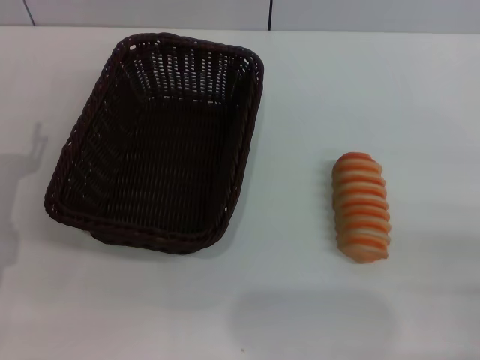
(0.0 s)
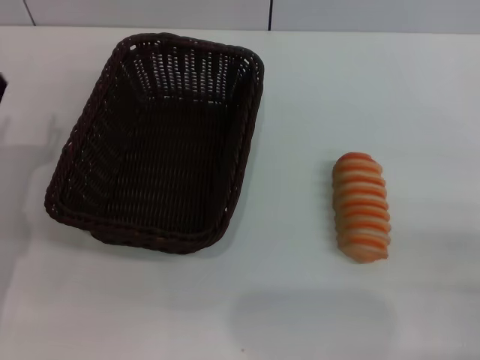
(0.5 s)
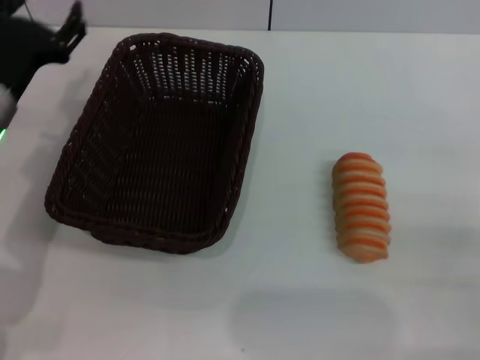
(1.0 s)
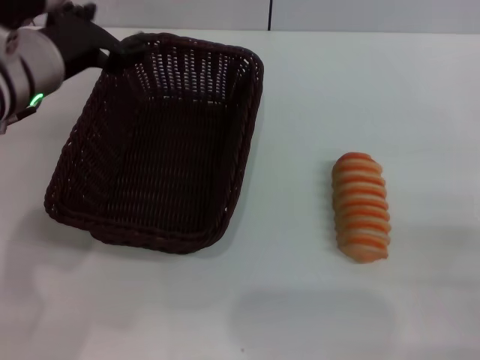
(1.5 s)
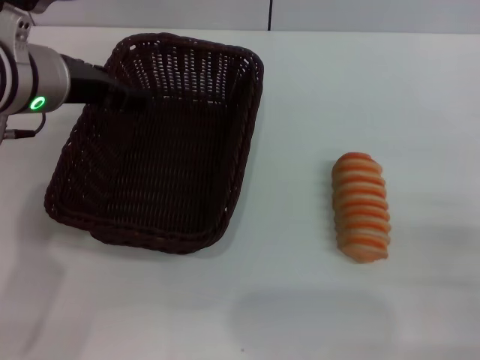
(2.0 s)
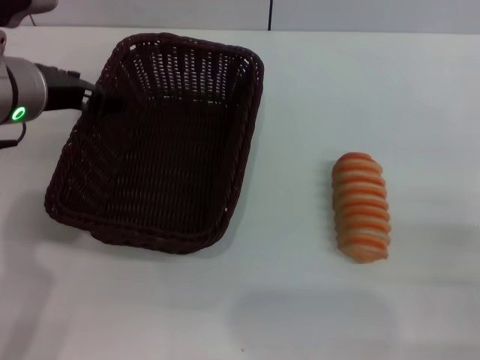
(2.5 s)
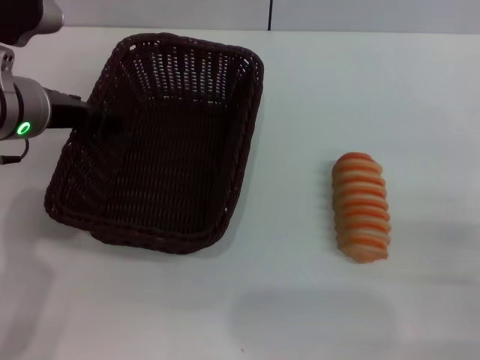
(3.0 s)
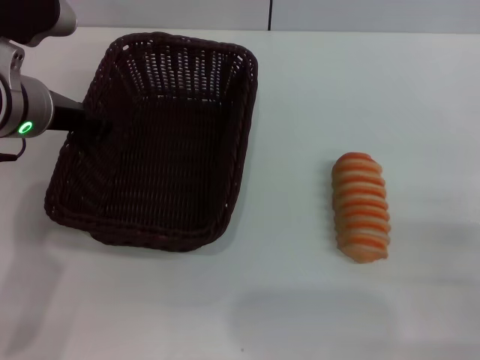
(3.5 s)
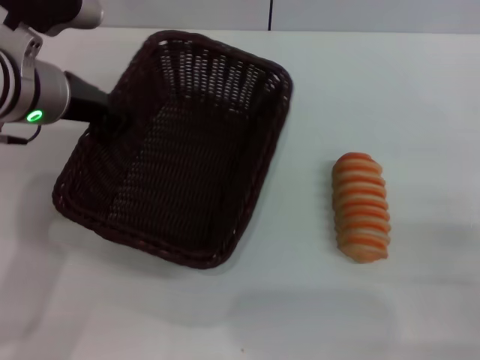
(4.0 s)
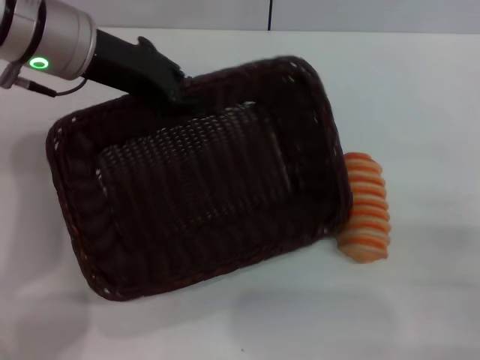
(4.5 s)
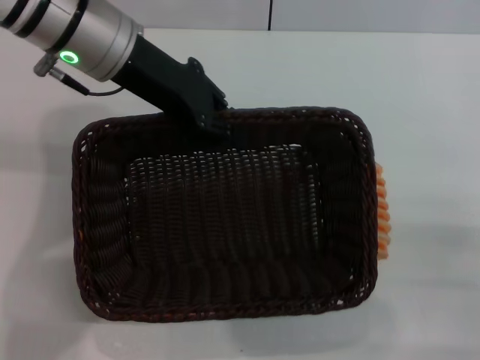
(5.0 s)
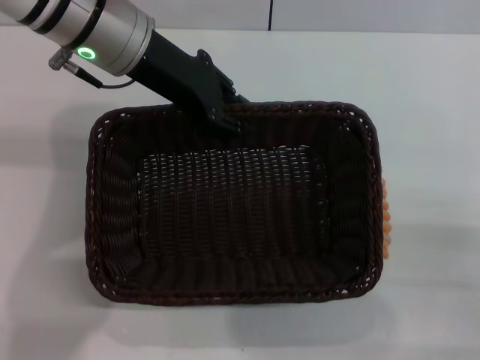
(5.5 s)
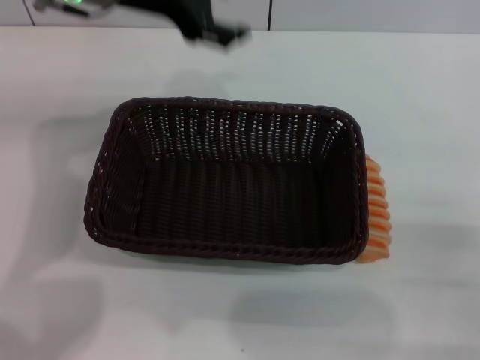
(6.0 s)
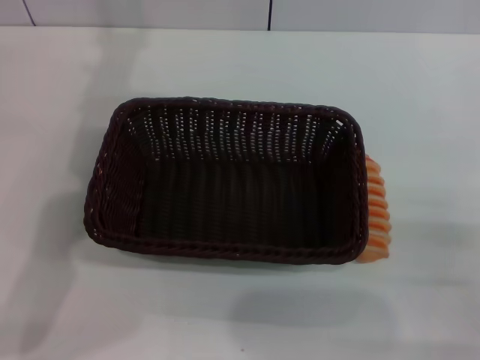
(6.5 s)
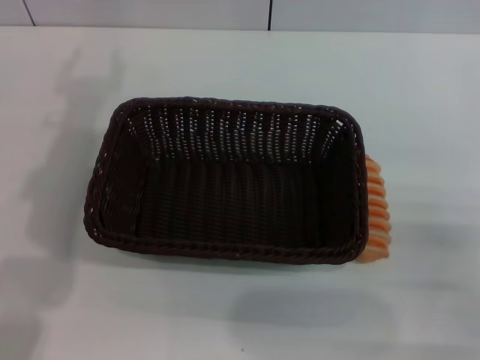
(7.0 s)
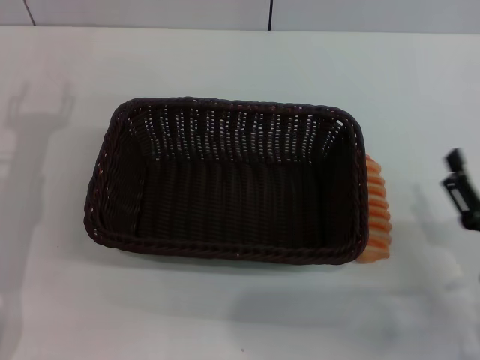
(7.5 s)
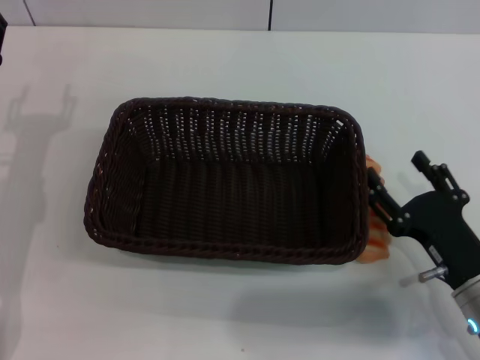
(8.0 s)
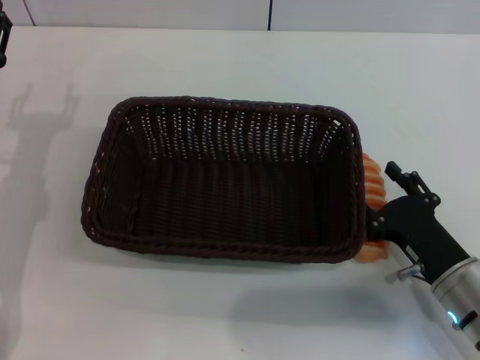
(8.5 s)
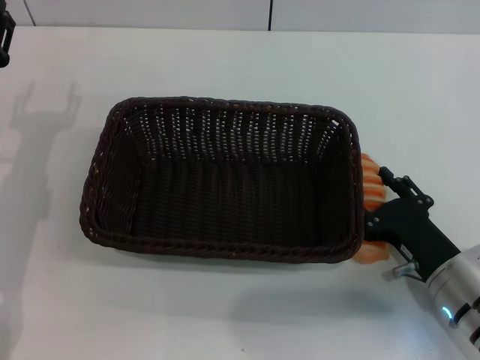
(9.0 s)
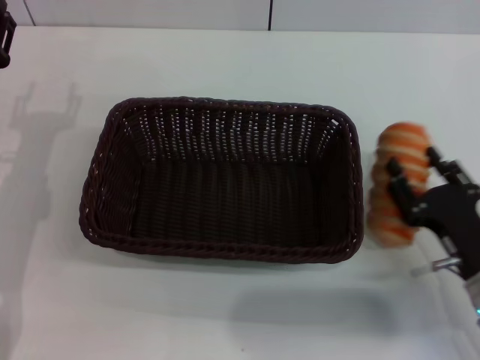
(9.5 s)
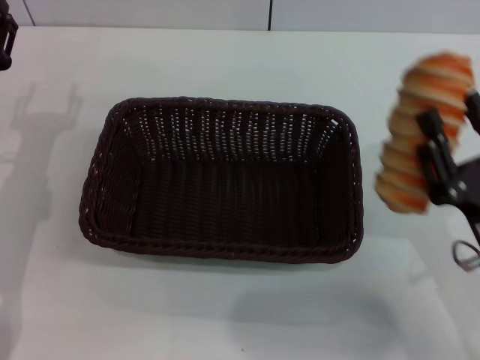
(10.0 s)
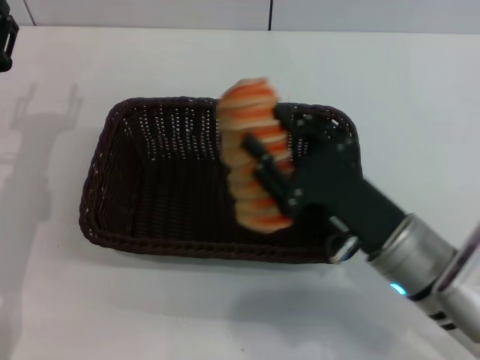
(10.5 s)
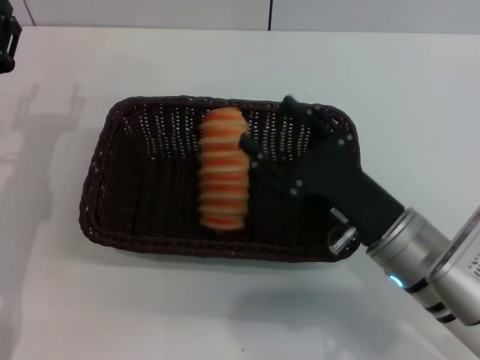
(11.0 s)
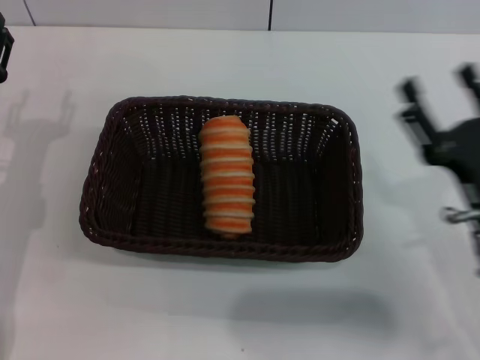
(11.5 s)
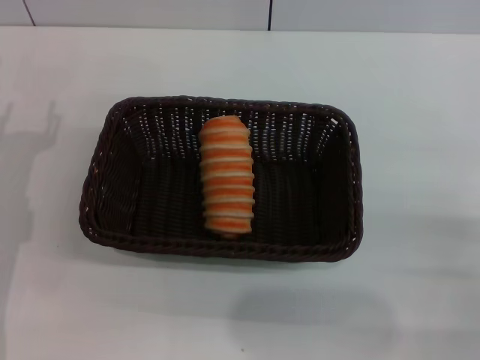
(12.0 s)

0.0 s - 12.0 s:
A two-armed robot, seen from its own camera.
Step, 0.0 s - 4.0 s: Pick up the dark basket with the left gripper.
Step, 4.5 s - 5.5 s: Place the dark basket in the center of view with the left gripper.
Step, 6.0 s - 9.5 s: Pick up the long bread with the right gripper.
Step, 10.0 s - 11.0 s: Place the long bread into the dark basket with the right gripper.
0.0 s - 2.0 s: The left gripper travels upward, to the right and forward by approximately 20 cm.
2.0 s - 4.0 s: The left gripper closes its fingers.
4.0 s - 6.0 s: The left gripper moves upward and forward, approximately 10 cm, and opens up.
6.0 s - 8.0 s: The right gripper moves to the left, about 10 cm. Meanwhile the left gripper travels downward, to the left and backward by some 25 cm.
8.0 s - 10.0 s: The right gripper ends up approximately 5 cm from where it was, and closes.
10.0 s - 12.0 s: The right gripper travels to the right by roughly 10 cm, and opens up.

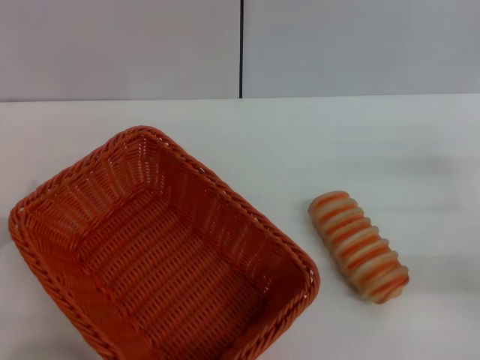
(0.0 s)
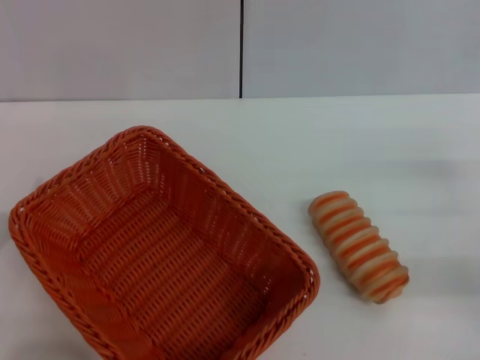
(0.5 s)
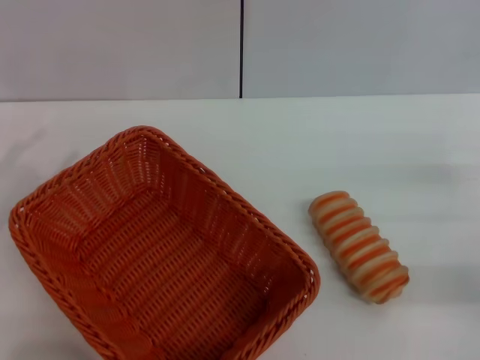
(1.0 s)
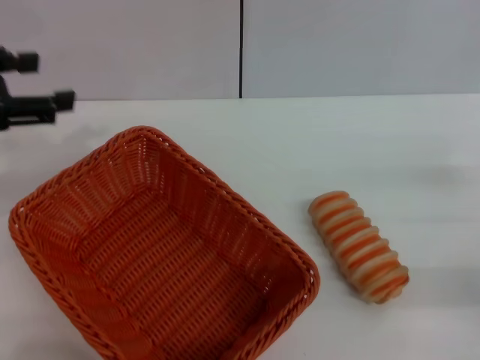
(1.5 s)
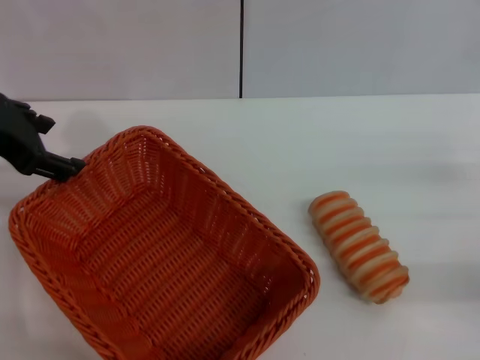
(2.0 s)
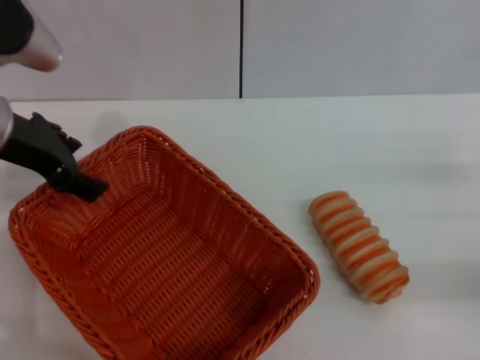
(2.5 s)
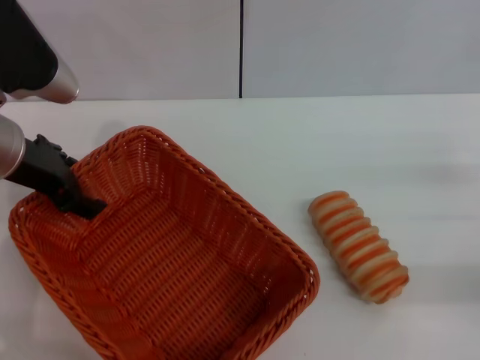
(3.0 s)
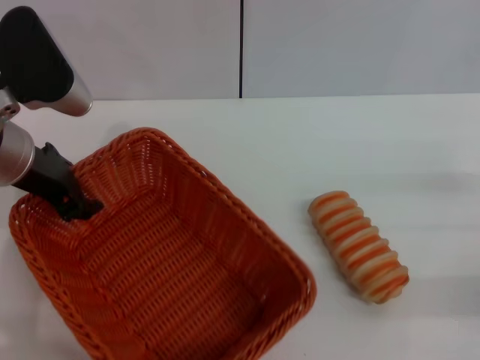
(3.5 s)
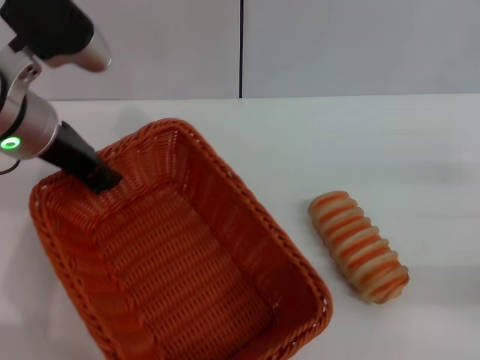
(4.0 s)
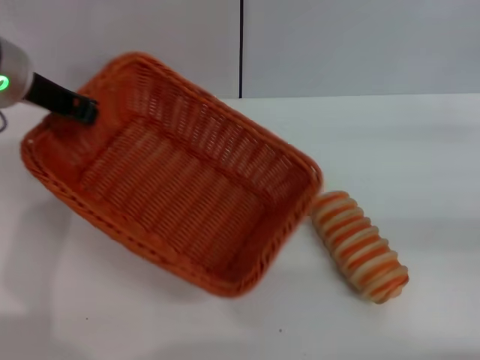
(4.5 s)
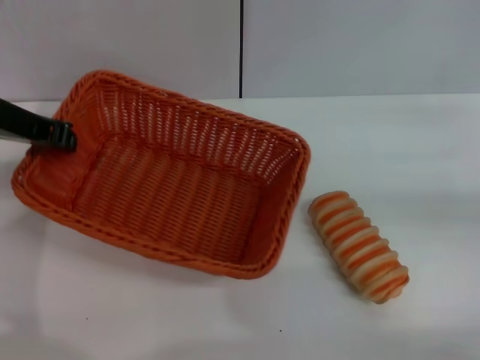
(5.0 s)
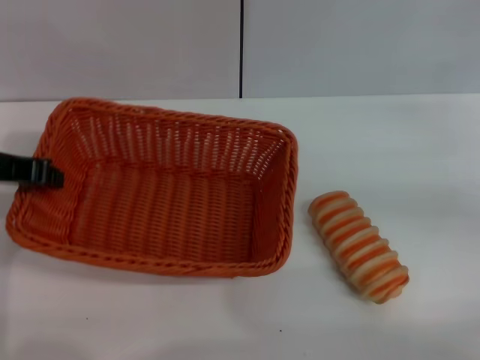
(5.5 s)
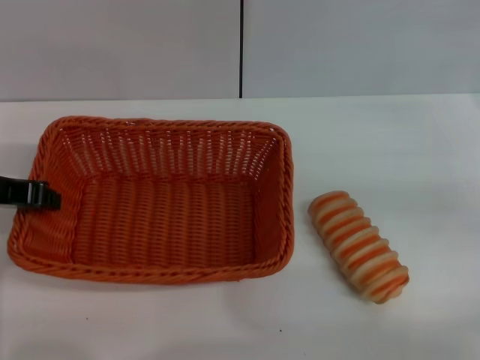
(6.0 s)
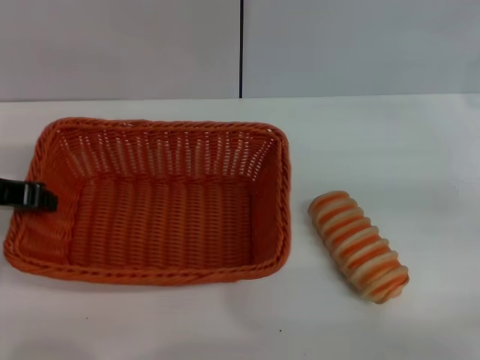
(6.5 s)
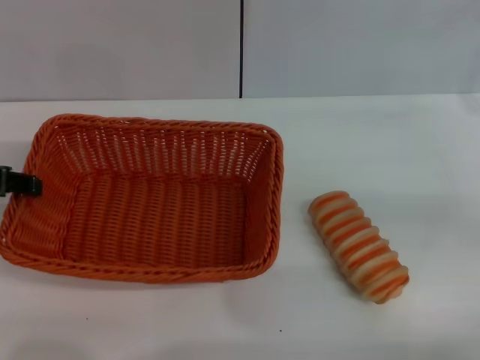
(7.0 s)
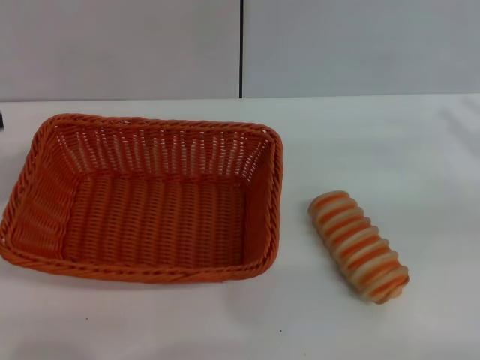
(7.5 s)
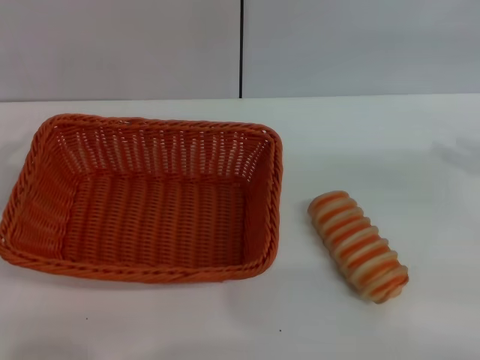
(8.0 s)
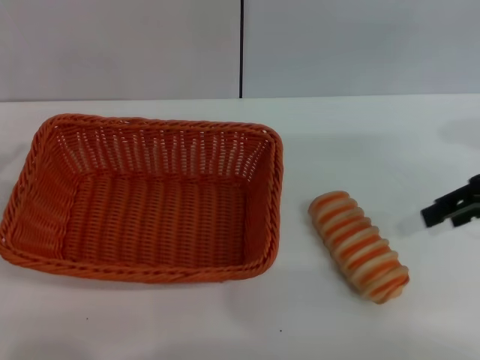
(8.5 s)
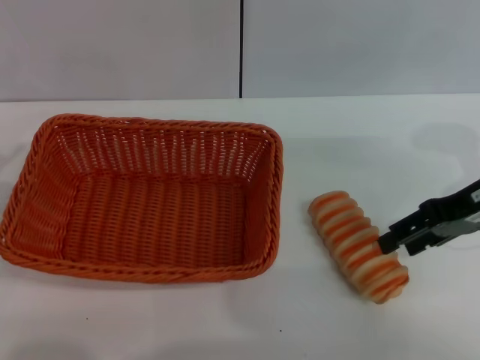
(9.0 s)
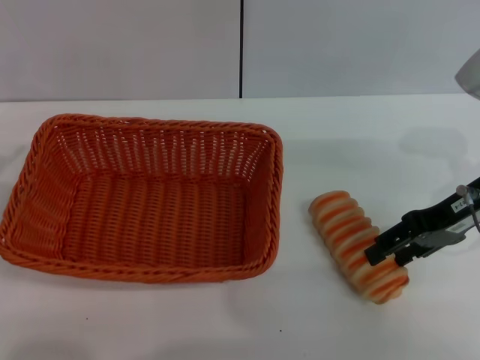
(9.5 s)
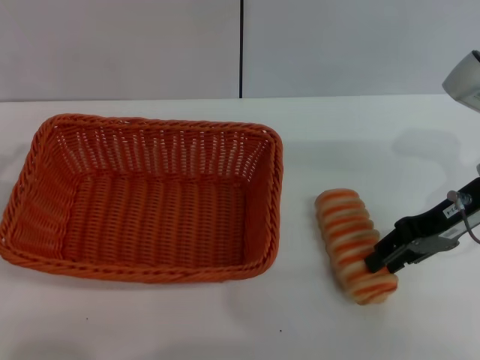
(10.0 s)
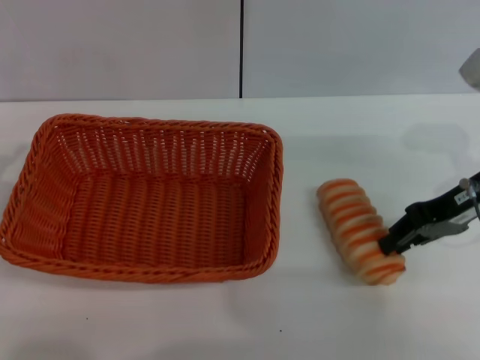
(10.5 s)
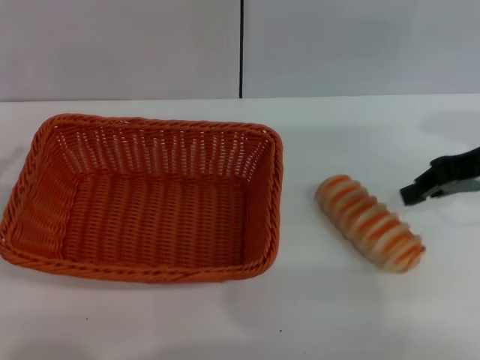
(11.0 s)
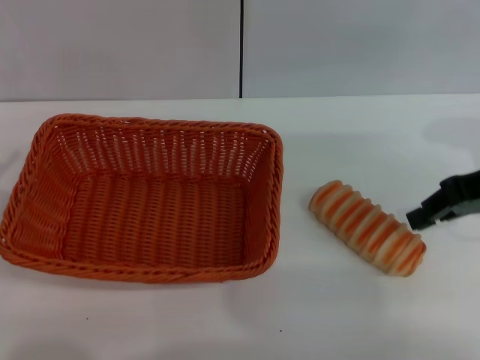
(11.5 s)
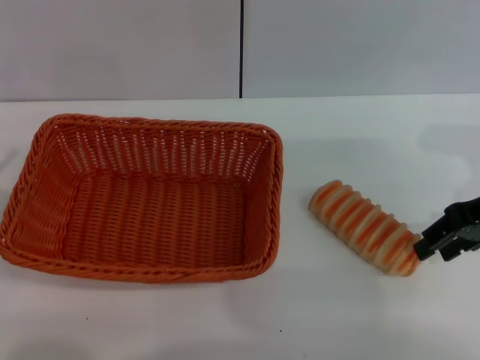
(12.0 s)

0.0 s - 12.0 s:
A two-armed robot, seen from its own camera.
Step, 0.0 s - 4.5 s: Pick up the light basket with the left gripper.
Step, 5.0 s - 7.0 s: Place the light basket in the center of view with the left gripper.
0.0 s - 2.0 s: The left gripper heads upward and forward, covering roughly 25 cm.
2.0 s - 4.0 s: The left gripper shifts about 5 cm to the right, and closes up.
4.0 s - 6.0 s: The left gripper travels to the left and backward by roughly 10 cm, while the right gripper shifts about 10 cm forward and upward.
6.0 s - 8.0 s: The right gripper shifts about 5 cm upward. Meanwhile the left gripper goes roughly 10 cm to the left and backward, and opens its fingers.
8.0 s - 10.0 s: The right gripper travels to the left and downward by some 15 cm.
10.0 s - 12.0 s: The right gripper shifts by roughly 5 cm, and closes and opens again.

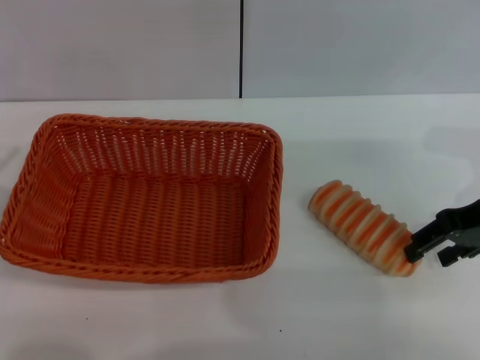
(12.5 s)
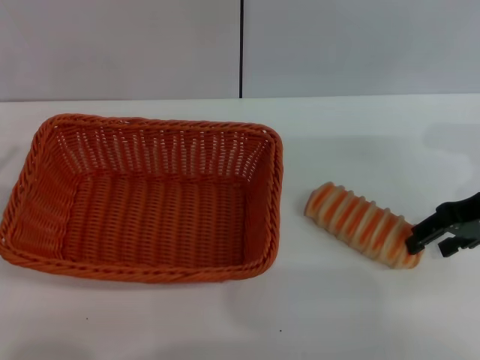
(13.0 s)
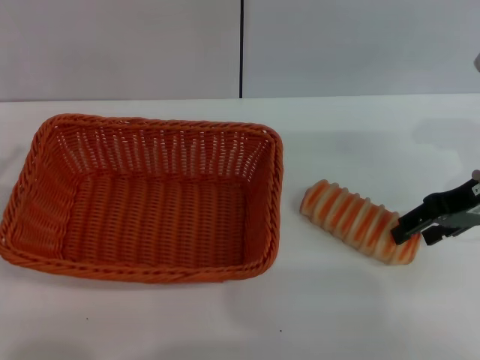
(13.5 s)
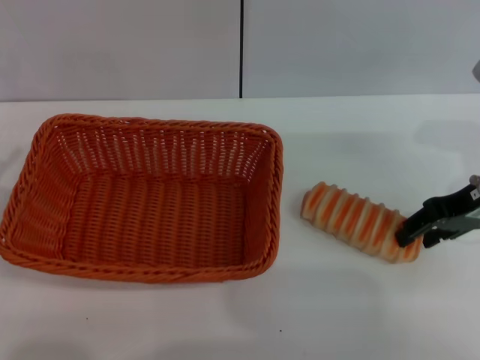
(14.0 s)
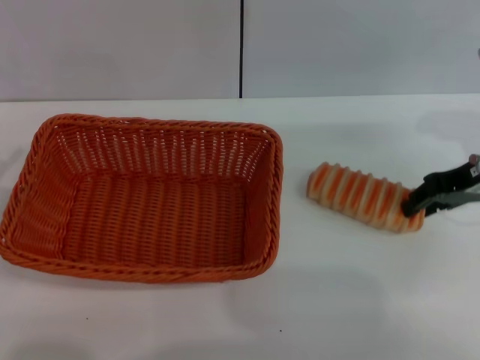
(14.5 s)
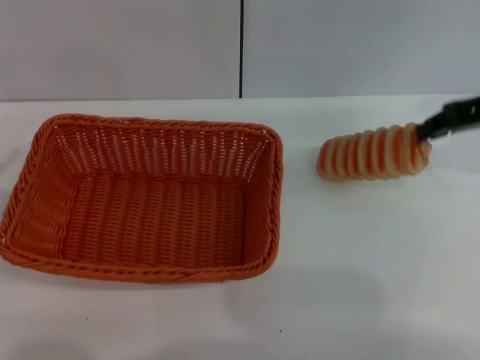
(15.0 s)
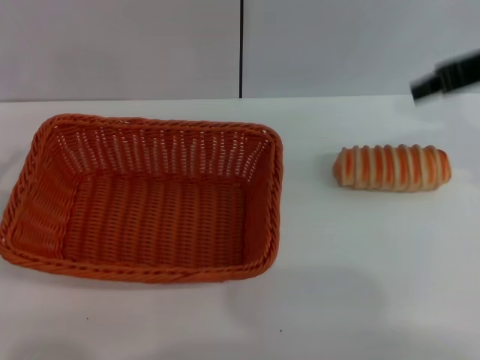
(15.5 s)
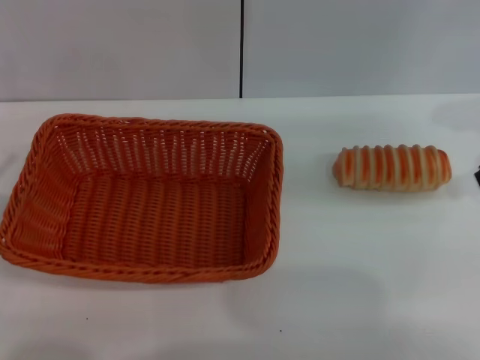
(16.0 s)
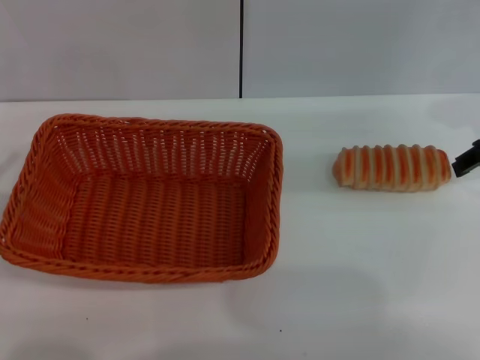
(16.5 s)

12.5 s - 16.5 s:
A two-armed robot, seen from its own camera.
12.5 s - 14.5 s: The right gripper closes.
14.5 s - 16.5 s: The right gripper moves some 10 cm upward and comes back, and closes and opens again.
